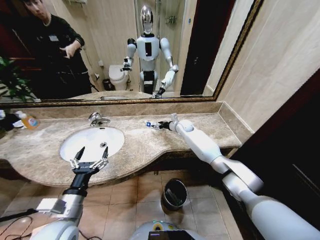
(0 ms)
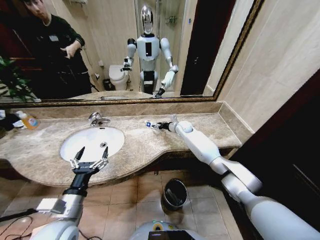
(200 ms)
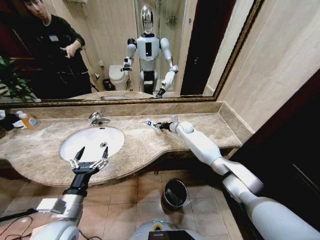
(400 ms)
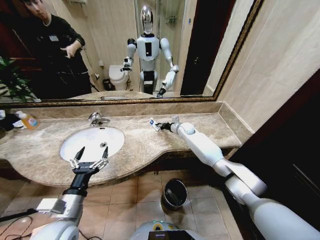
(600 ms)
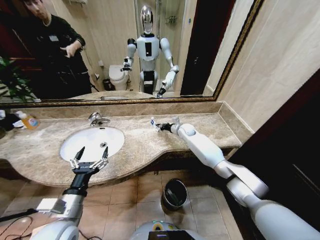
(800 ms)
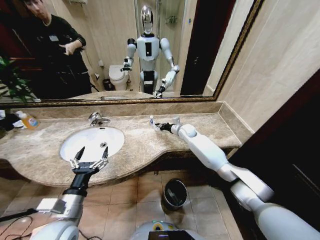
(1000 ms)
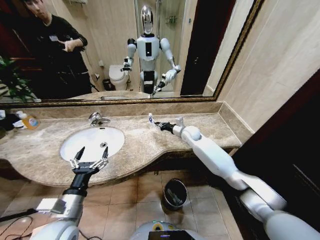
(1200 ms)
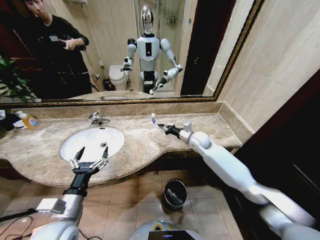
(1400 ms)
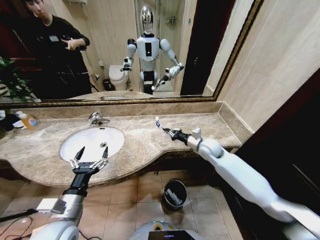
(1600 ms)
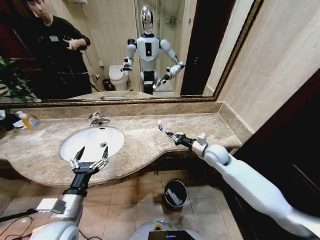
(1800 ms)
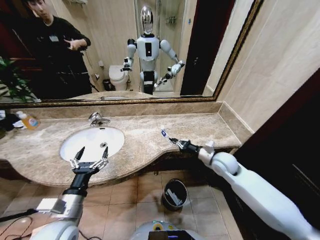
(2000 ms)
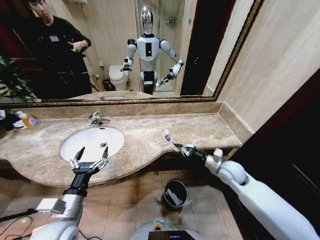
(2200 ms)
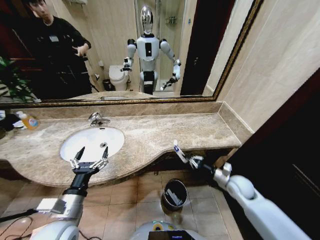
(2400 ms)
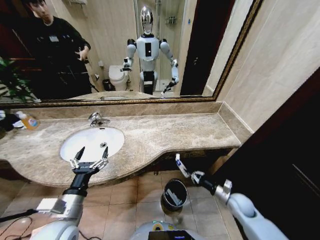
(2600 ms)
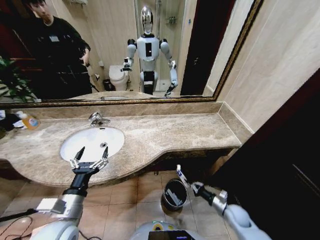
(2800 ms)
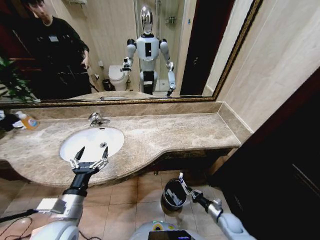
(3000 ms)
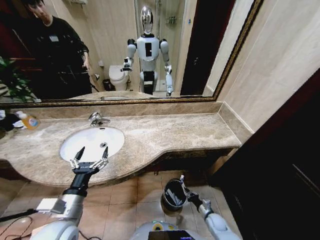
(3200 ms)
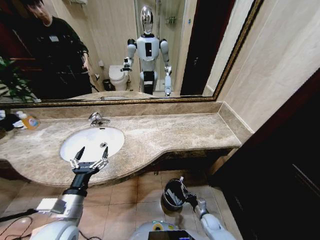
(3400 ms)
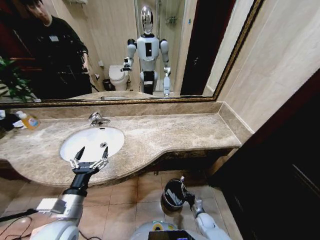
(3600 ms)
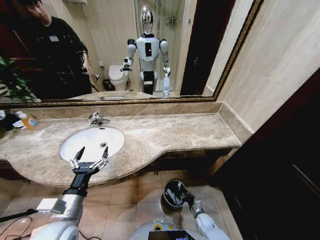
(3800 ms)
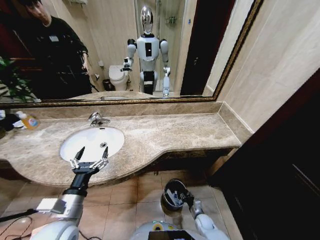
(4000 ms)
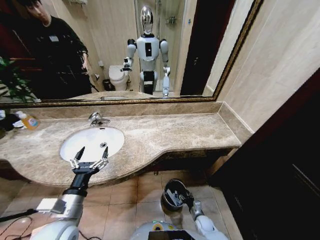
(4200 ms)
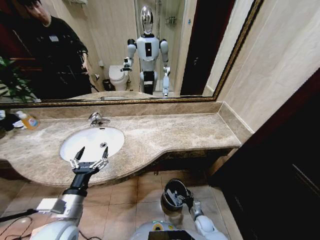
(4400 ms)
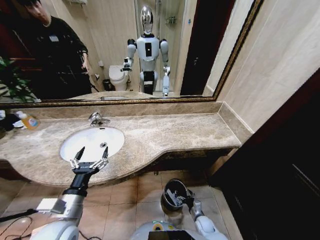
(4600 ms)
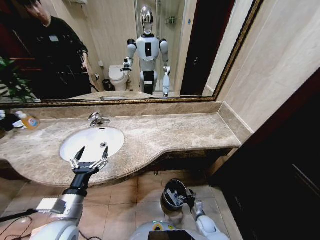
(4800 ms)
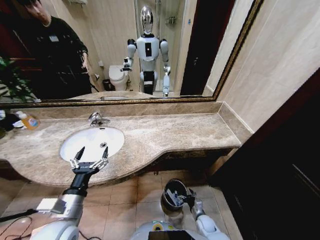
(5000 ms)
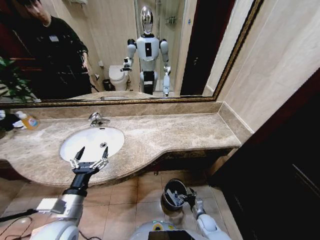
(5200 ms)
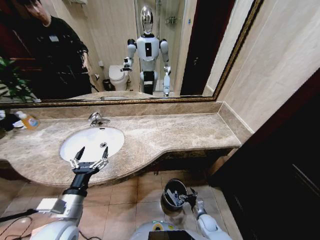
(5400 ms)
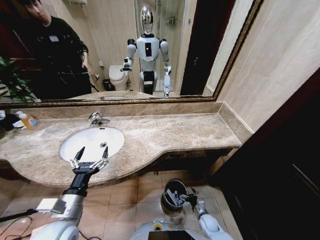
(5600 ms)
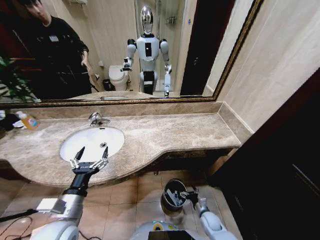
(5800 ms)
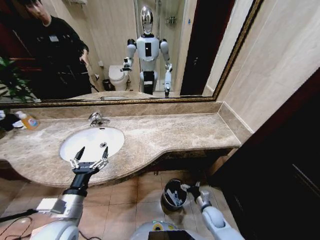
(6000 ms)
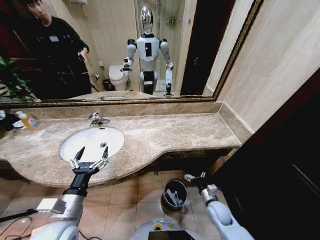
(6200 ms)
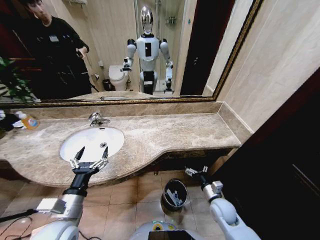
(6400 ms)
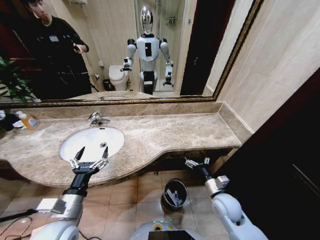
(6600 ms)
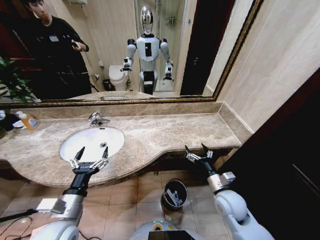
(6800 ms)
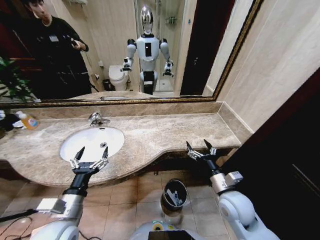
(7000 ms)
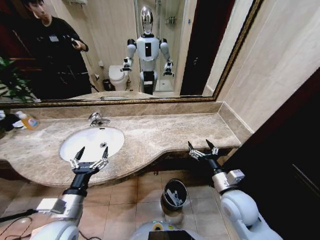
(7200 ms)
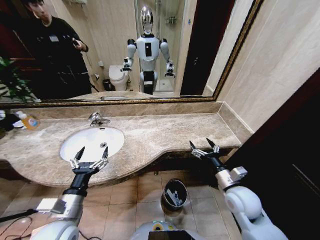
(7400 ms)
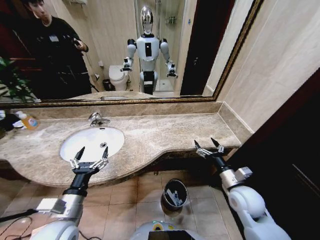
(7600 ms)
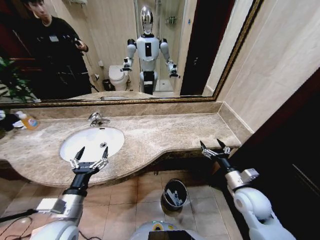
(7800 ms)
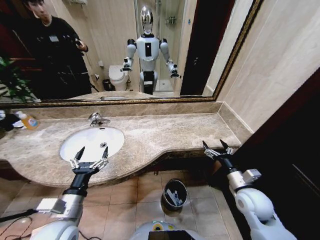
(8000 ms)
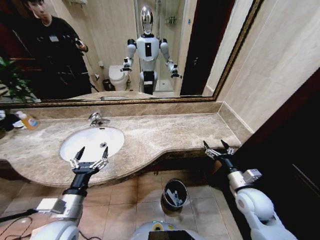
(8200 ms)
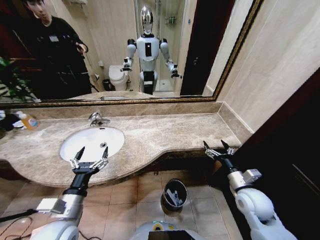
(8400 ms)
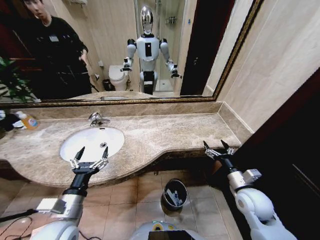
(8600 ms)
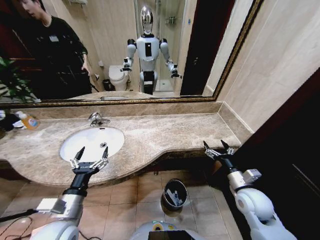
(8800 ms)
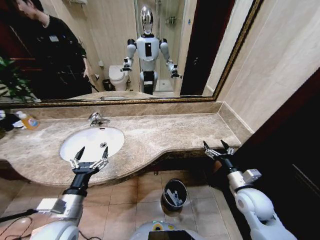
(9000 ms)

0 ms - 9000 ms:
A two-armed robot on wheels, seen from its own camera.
Task of the whole recording: Pick up the trash from the sink and place it in the trash bin.
0 ms - 1600 ms: The right gripper is displaced backward and to the right by roughly 20 cm, and closes its fingers.
1600 ms - 3000 ms: The right gripper moves downward and backward, approximately 40 cm.
3000 ms - 4400 ms: The right gripper travels to the left and downward by some 15 cm, and opens up.
4400 ms - 6000 ms: The right gripper is displaced upward by some 10 cm.
6000 ms - 7600 ms: The right gripper moves upward, about 25 cm.
7600 ms - 9000 ms: The grippers stay close to where they were, moving slightly.
